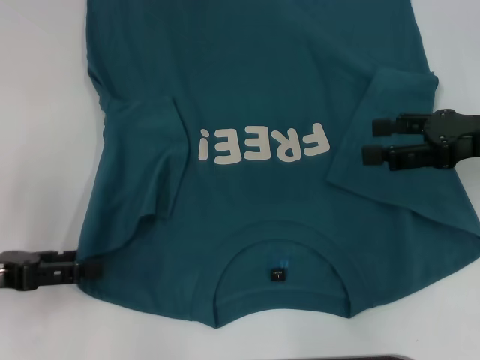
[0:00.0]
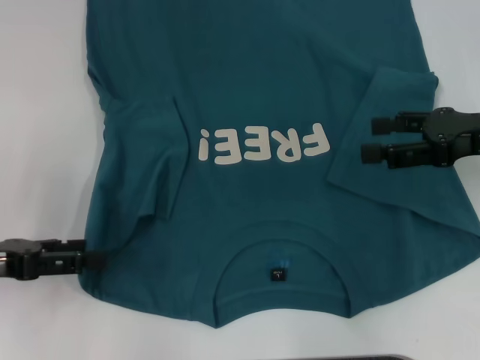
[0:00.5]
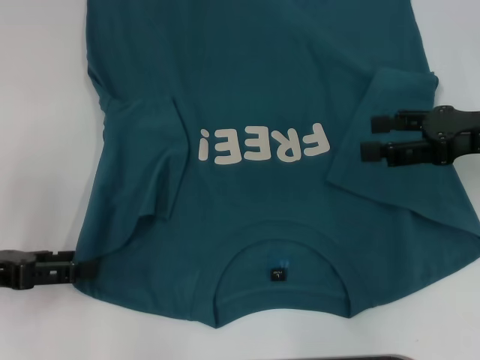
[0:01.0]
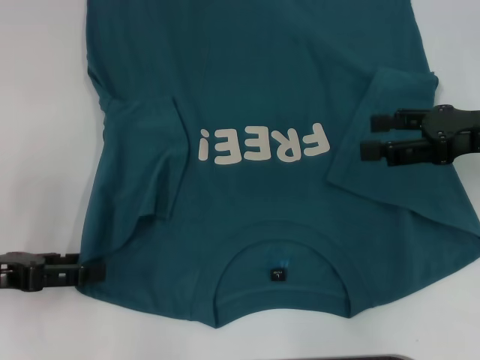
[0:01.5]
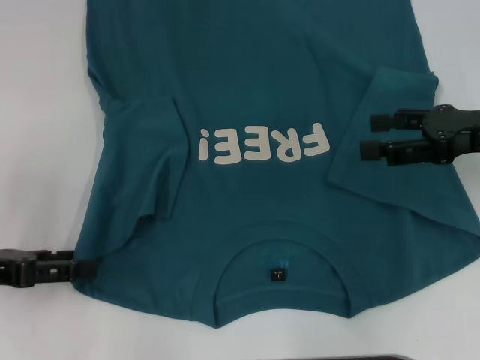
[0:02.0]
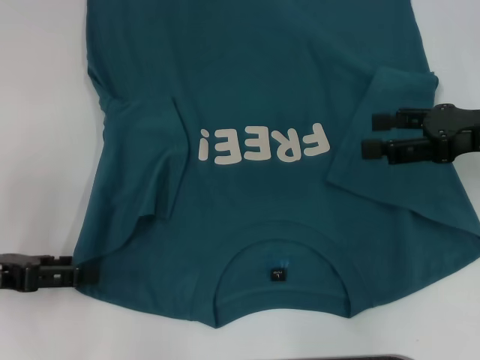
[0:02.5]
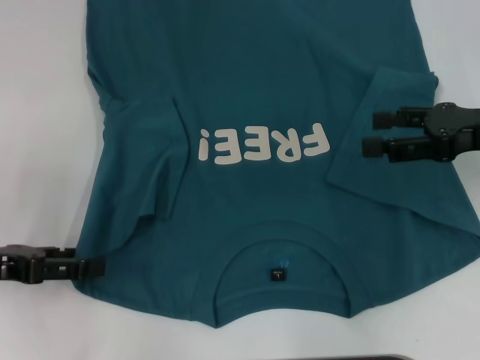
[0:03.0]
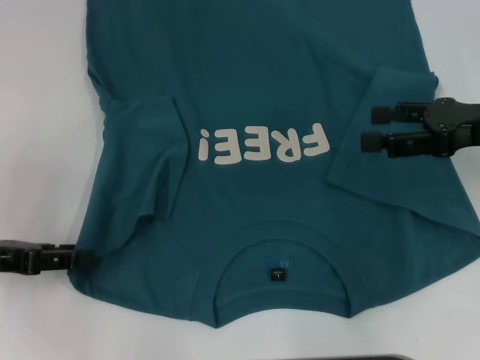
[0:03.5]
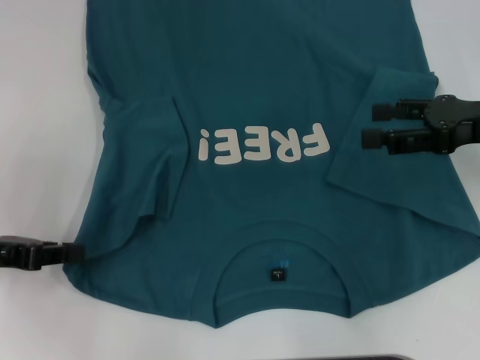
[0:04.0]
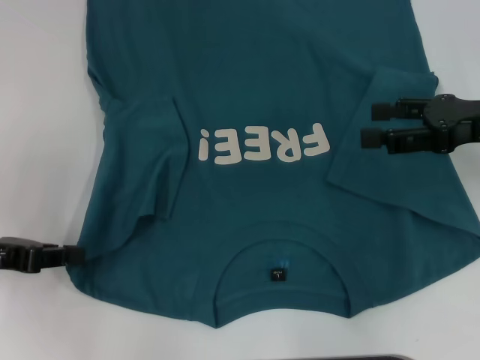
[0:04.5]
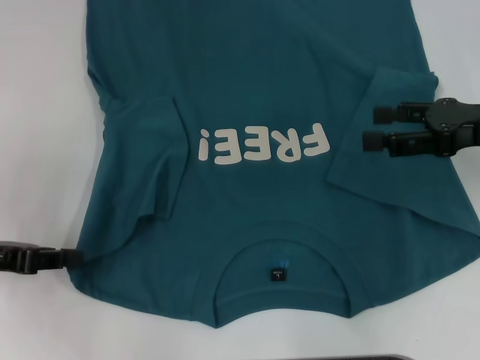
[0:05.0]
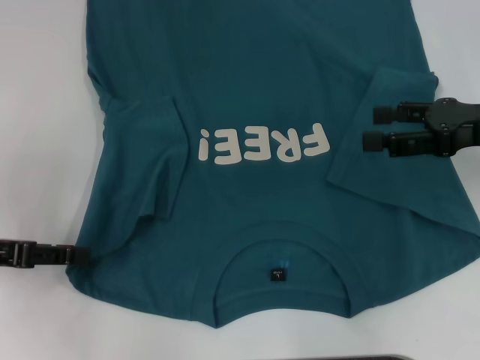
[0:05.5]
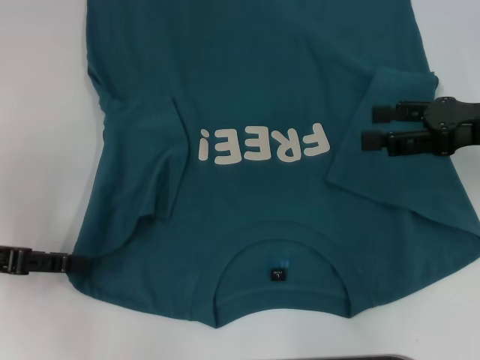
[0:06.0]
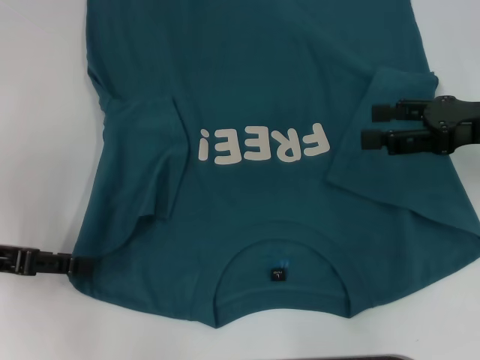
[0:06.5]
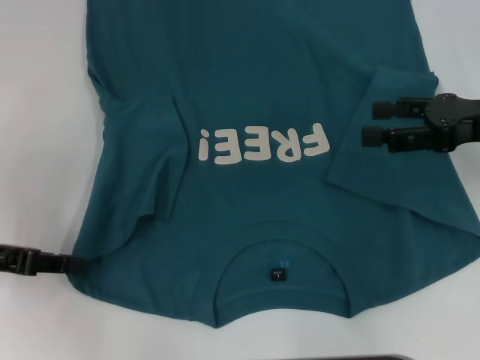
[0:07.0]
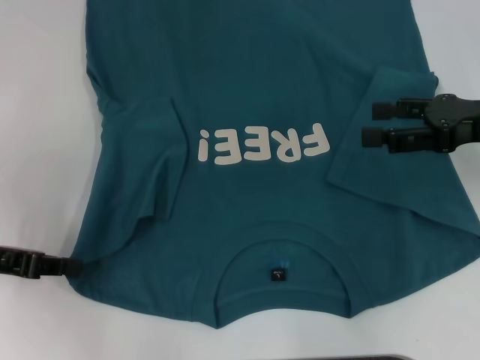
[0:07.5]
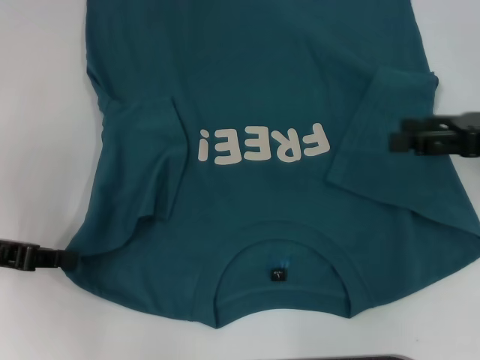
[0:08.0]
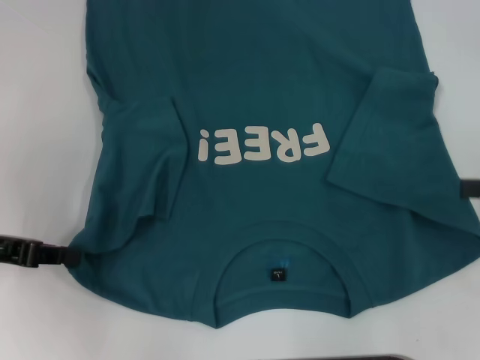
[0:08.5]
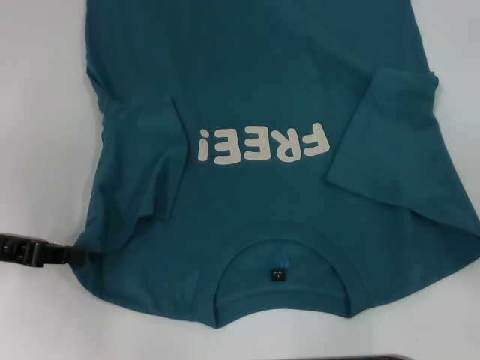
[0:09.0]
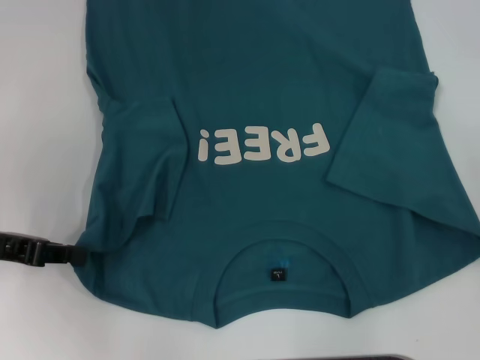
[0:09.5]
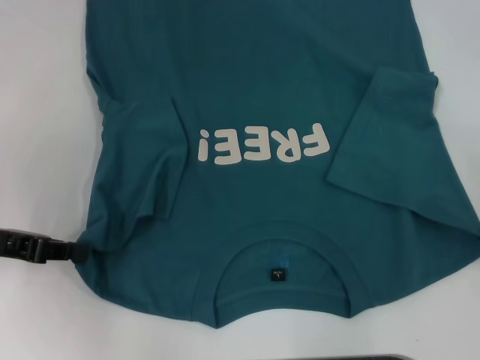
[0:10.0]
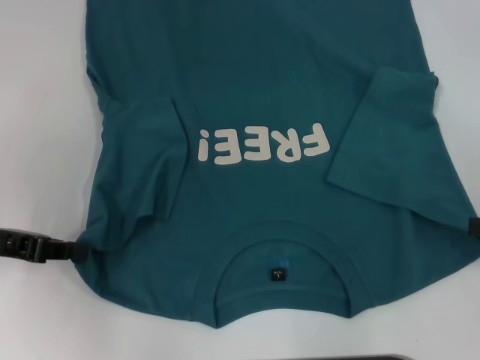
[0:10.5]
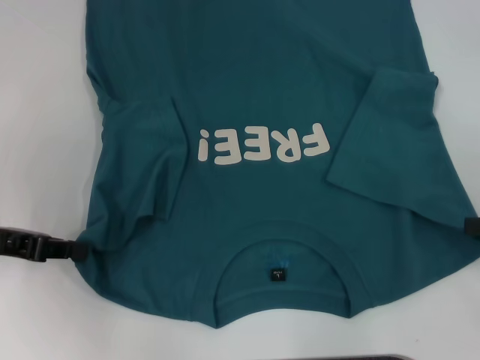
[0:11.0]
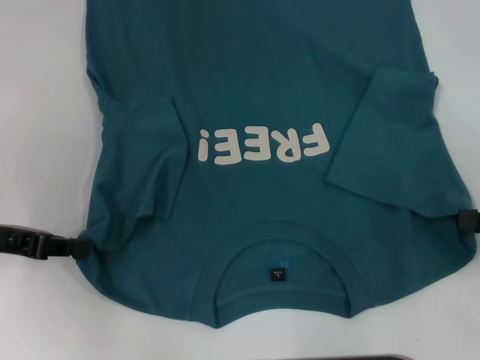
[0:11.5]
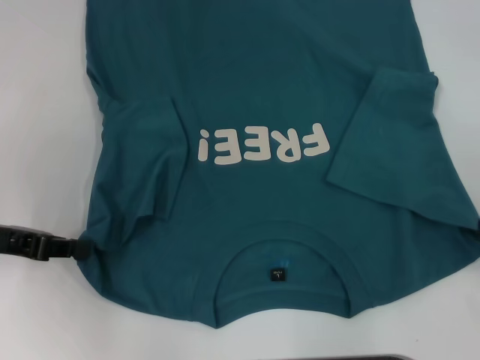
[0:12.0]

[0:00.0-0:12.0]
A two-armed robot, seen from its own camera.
Step, 0:00.0 to 0:07.0: Grab the bottom left corner with your left hand.
0:00.0 to 0:02.0: The grippers move only a little.
0:02.0 to 0:04.0: The left gripper closes.
0:04.0 to 0:06.0: The left gripper opens its fingers.
0:06.0 to 0:08.0: The left gripper closes up.
0:08.0 to 0:10.0: The right gripper moves backward and to the right, approximately 10 cm.

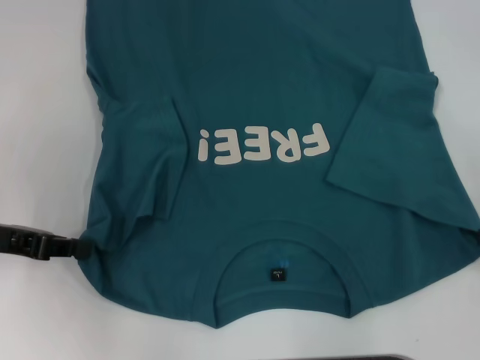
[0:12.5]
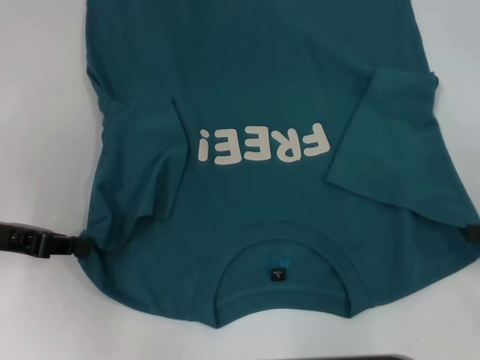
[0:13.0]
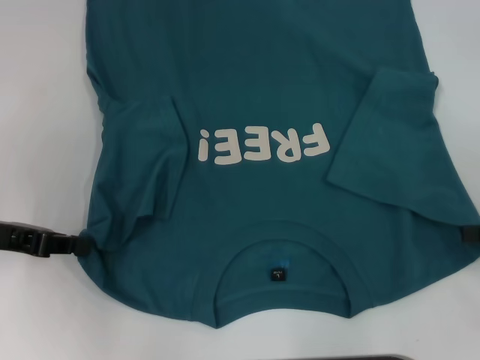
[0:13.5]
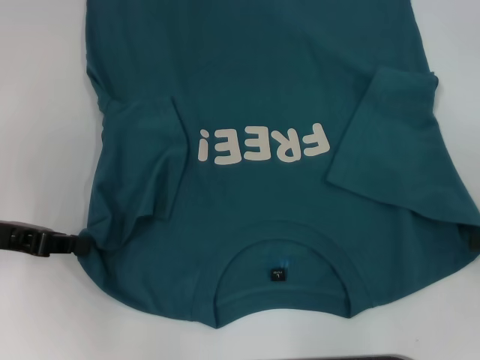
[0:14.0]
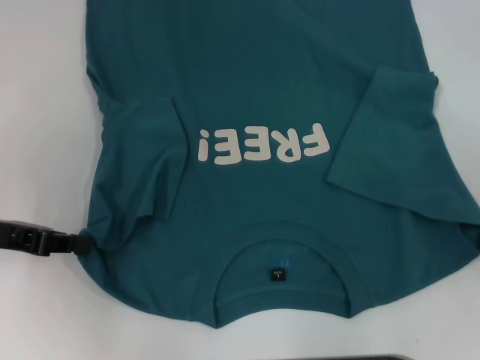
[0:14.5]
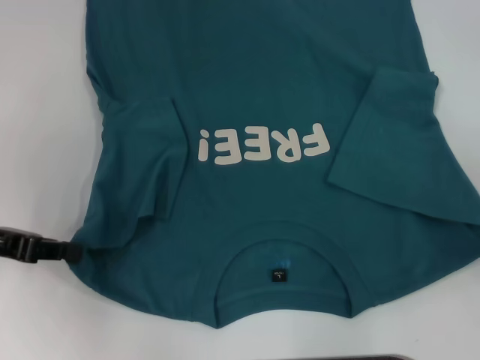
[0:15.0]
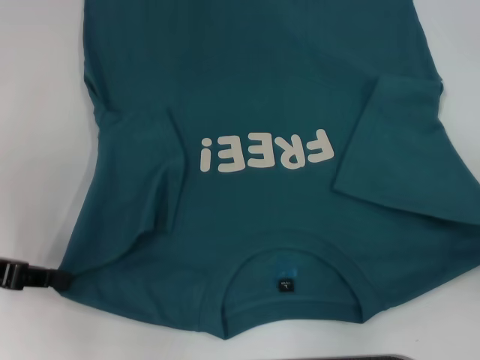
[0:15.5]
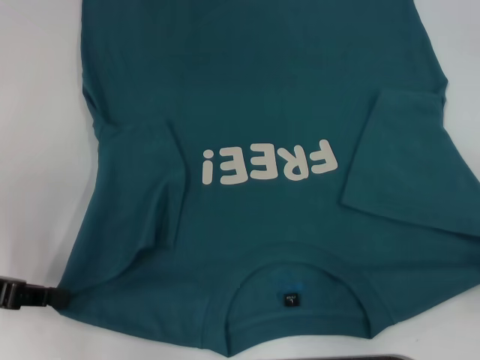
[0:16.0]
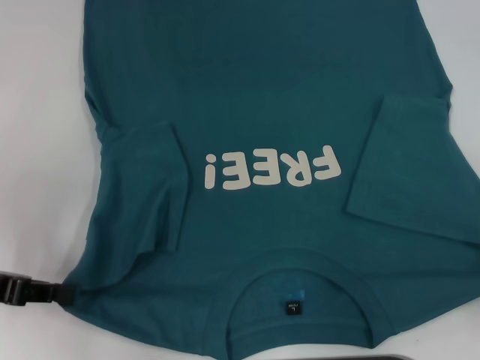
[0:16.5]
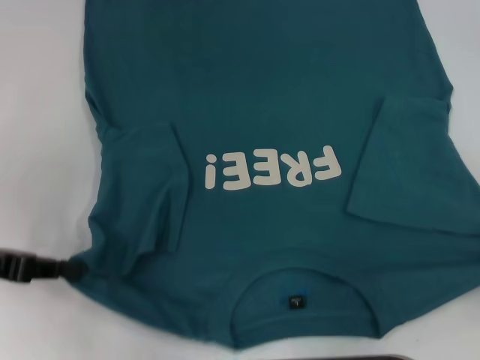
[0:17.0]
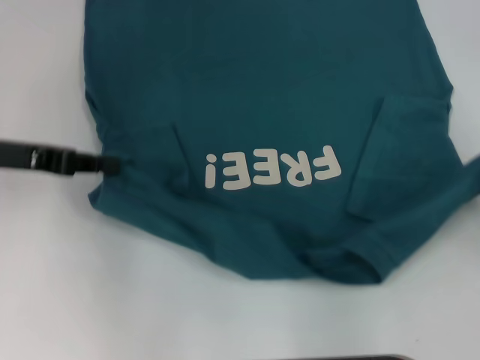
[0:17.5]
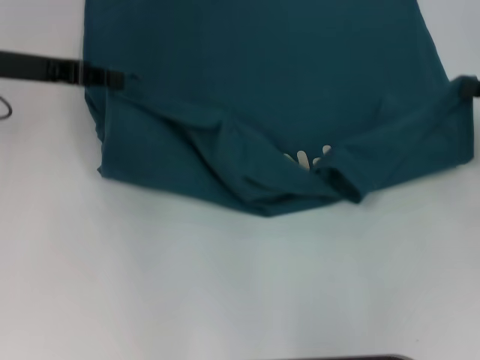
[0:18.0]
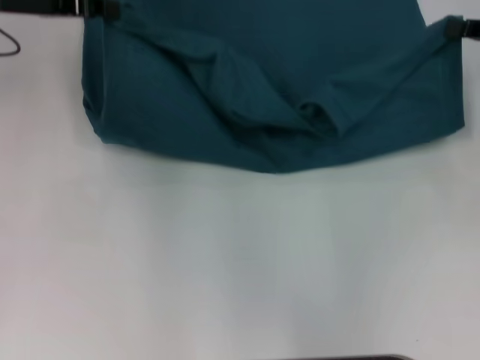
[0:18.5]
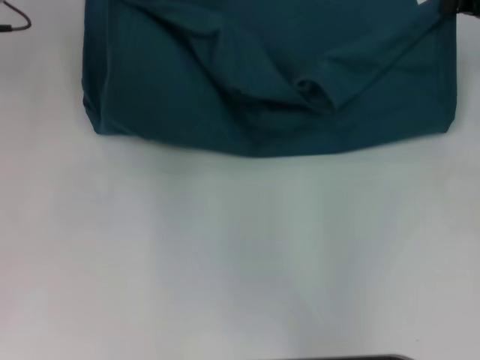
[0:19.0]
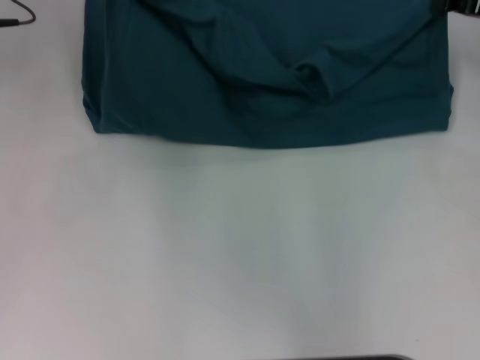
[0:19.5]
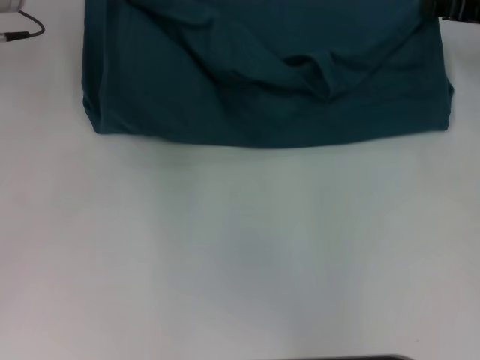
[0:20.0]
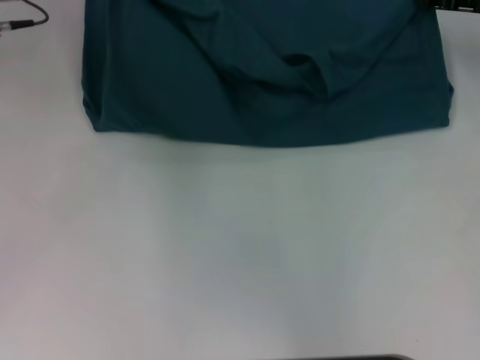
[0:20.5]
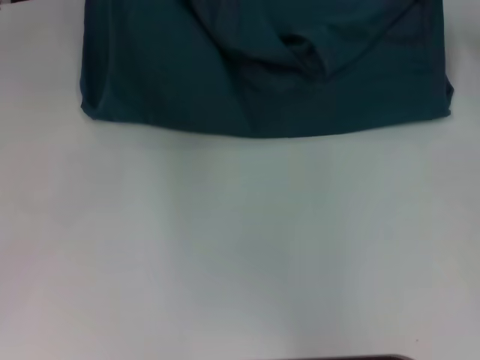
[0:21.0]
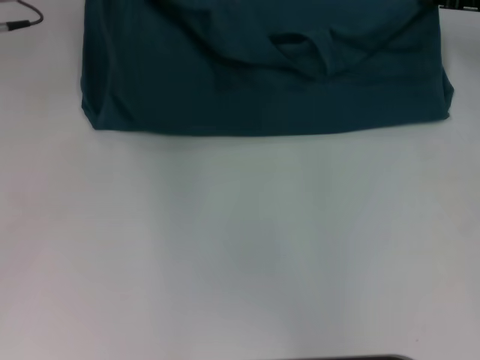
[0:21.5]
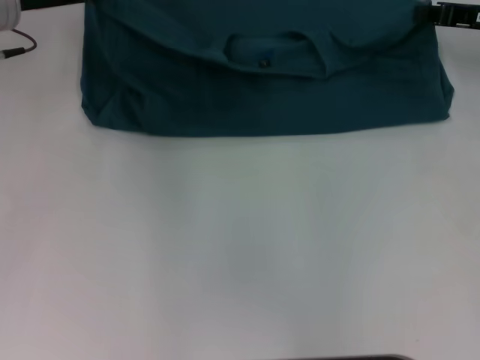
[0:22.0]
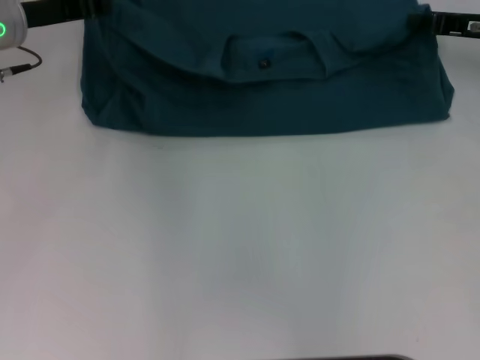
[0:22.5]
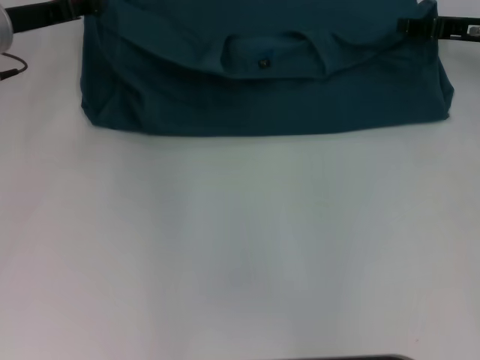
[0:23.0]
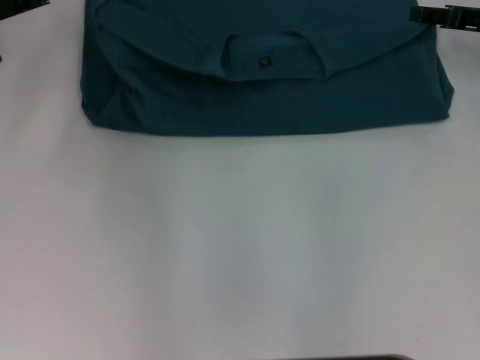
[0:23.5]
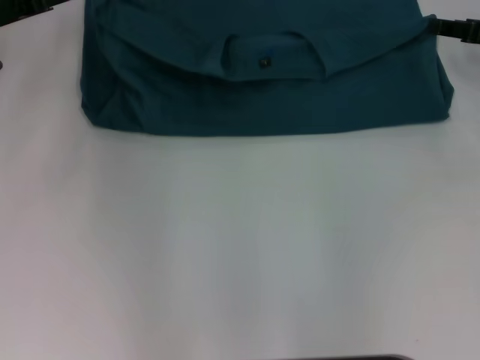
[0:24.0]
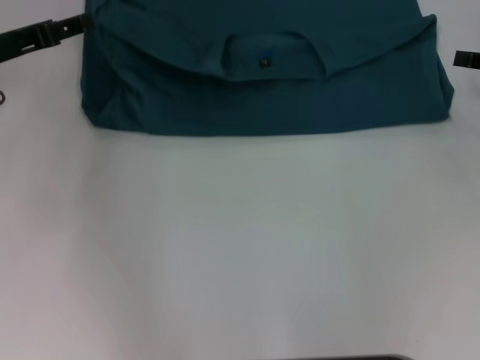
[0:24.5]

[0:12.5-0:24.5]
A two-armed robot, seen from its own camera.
Step, 0:15.0 to 0:23.0: Fold the clothes to the left.
Step, 0:15.0 to 0:23.0: Fold the clothes to the right.
0:14.5 to 0:16.5: The right gripper goes about 10 cm backward.
0:16.5 to 0:18.5: The right gripper travels forward by some 20 cm. The left gripper goes about 20 cm forward and upward.
0:18.5 to 0:20.5: The right gripper is displaced forward by roughly 5 cm.
0:20.5 to 0:22.5: The left gripper shifts by about 5 cm.
0:22.5 to 0:24.5: The right gripper heads to the right and backward, covering some 10 cm, and opens its fingers; the left gripper goes roughly 5 cm backward, and opens up.

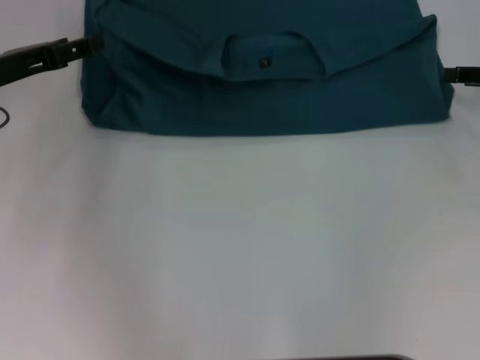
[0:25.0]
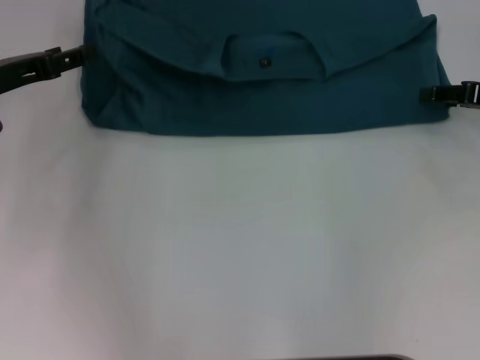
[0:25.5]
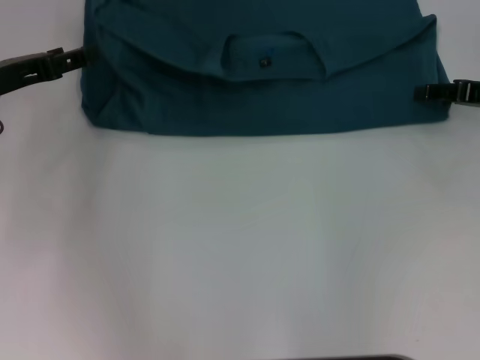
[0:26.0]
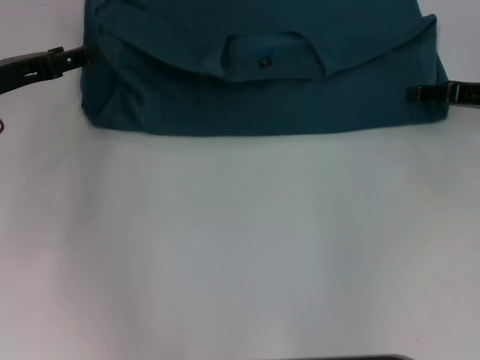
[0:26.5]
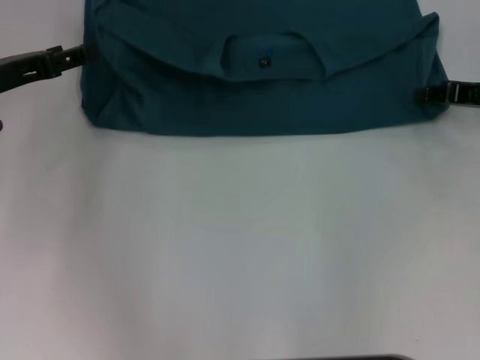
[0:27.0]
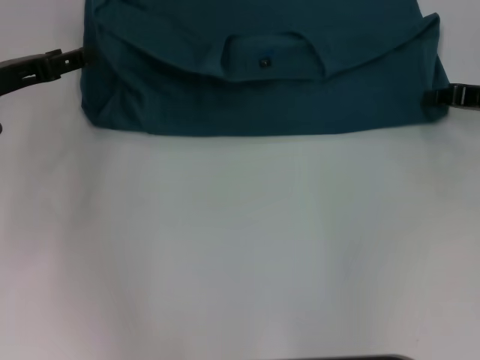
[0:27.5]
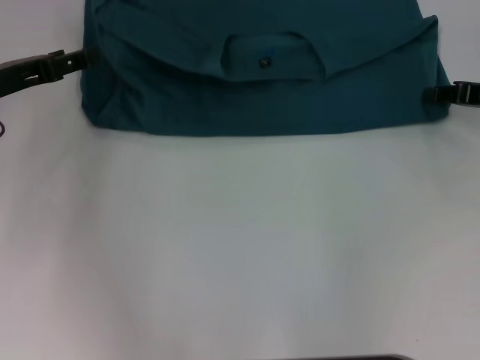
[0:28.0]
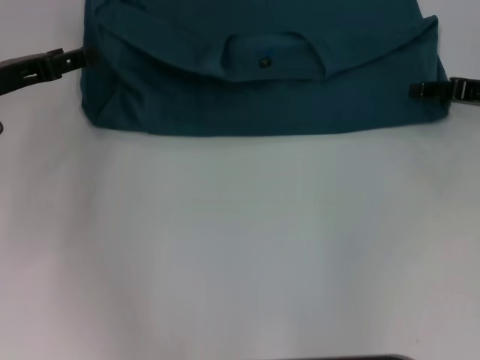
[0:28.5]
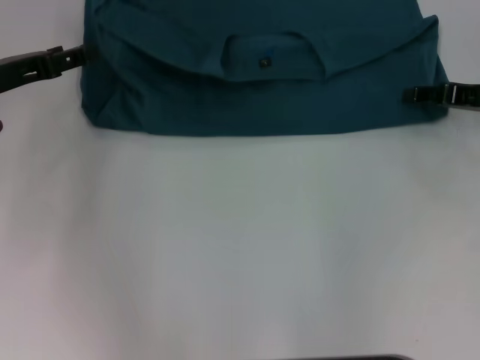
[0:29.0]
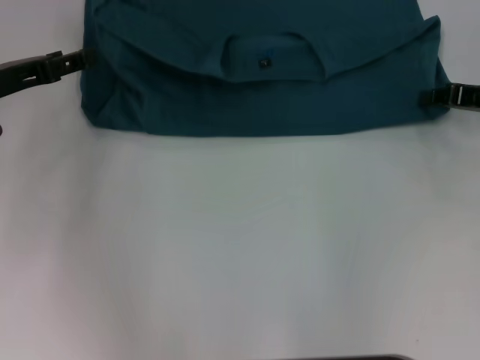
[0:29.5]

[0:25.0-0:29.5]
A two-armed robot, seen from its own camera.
0:25.0 to 0:27.0: The right gripper closes.
